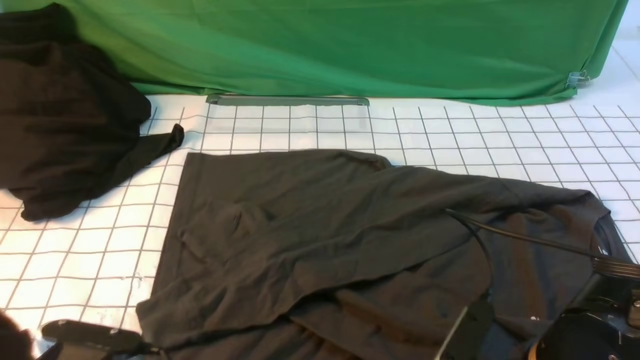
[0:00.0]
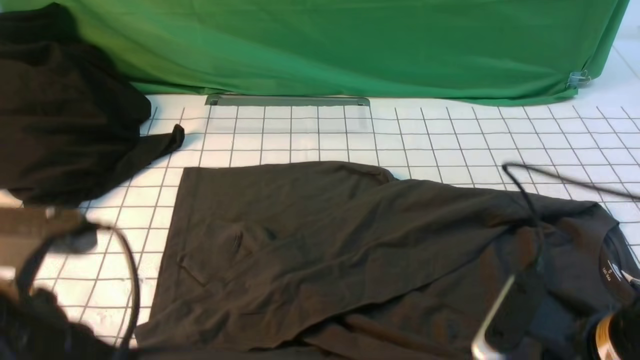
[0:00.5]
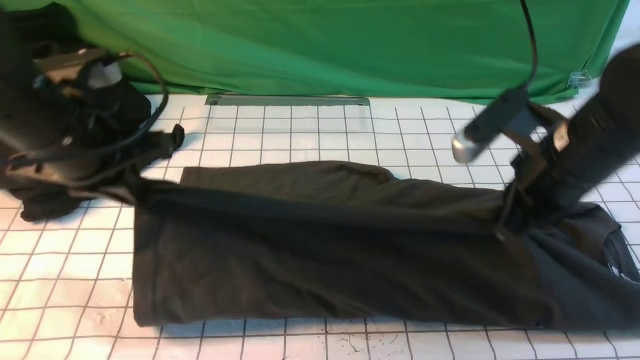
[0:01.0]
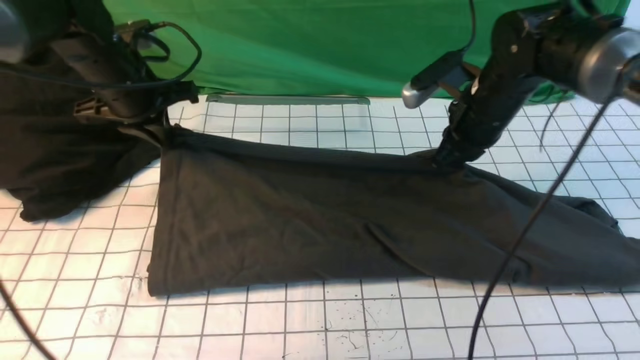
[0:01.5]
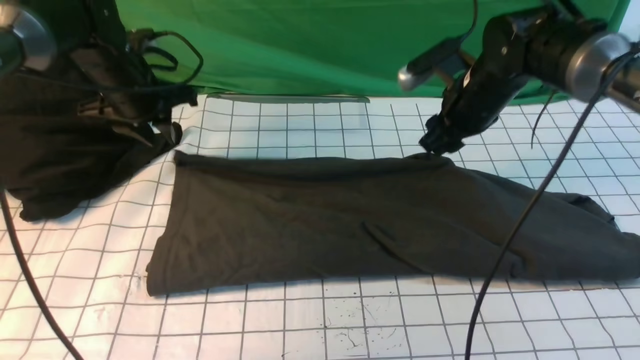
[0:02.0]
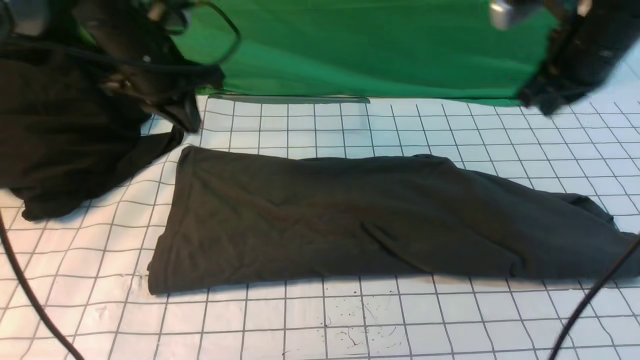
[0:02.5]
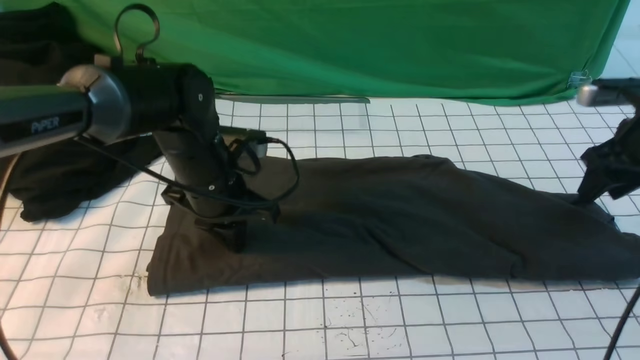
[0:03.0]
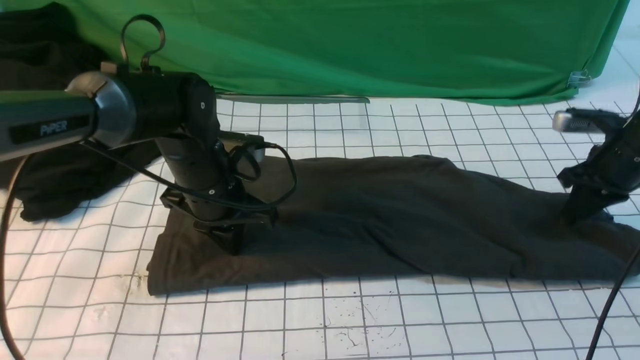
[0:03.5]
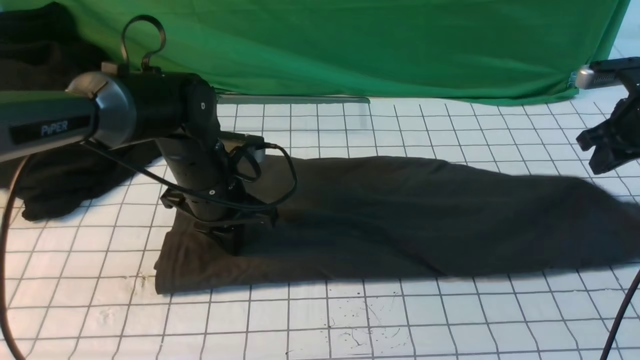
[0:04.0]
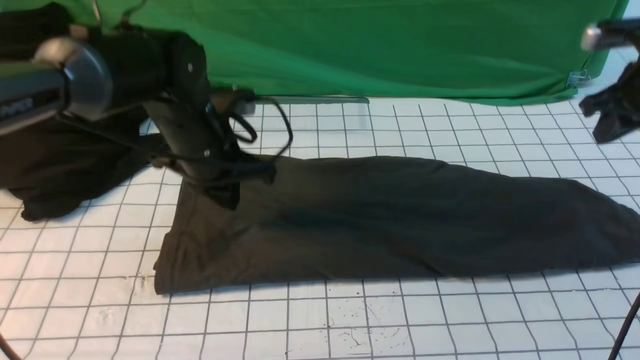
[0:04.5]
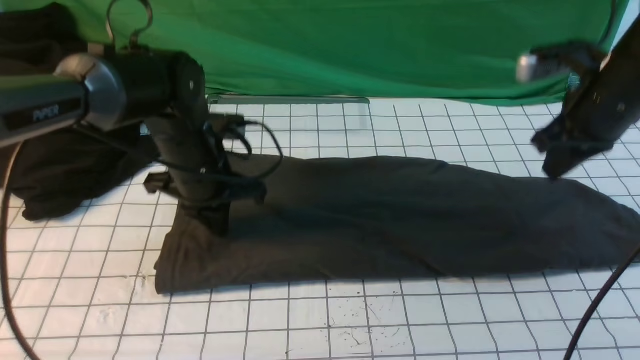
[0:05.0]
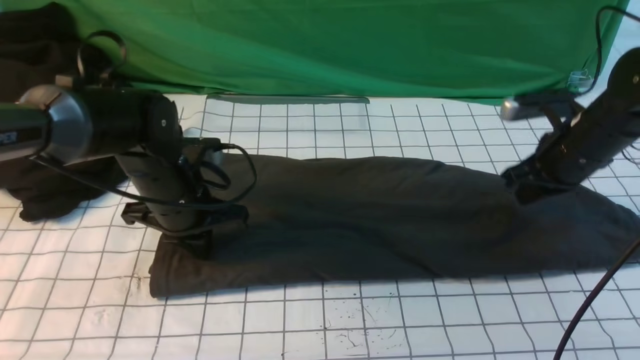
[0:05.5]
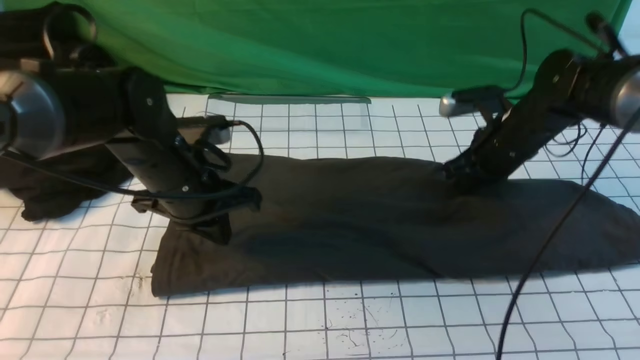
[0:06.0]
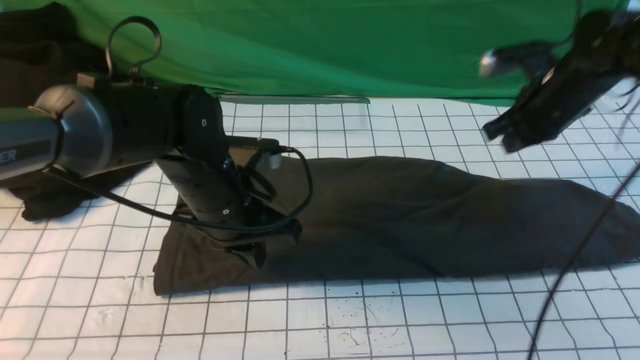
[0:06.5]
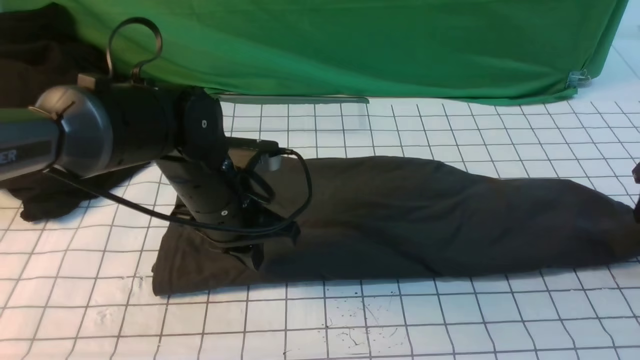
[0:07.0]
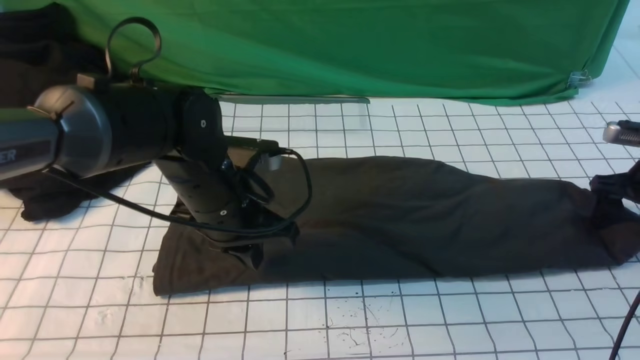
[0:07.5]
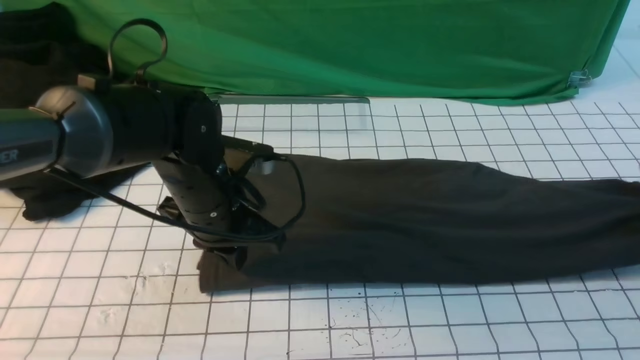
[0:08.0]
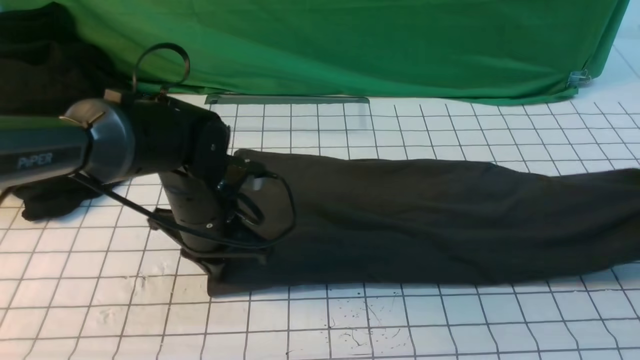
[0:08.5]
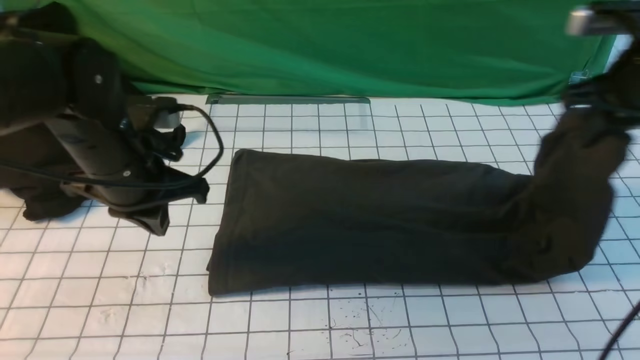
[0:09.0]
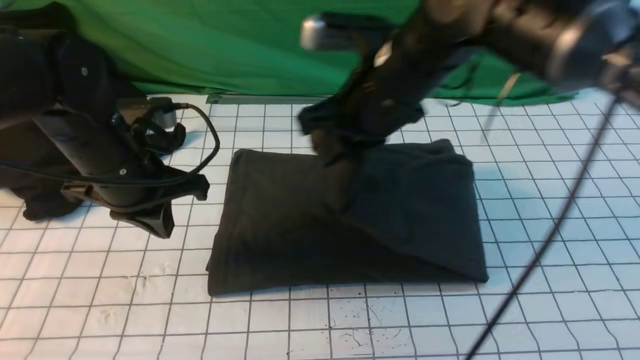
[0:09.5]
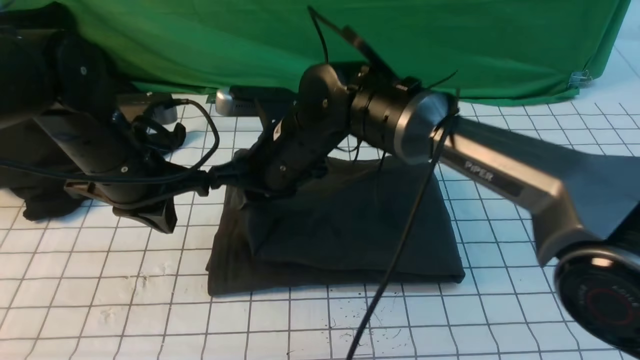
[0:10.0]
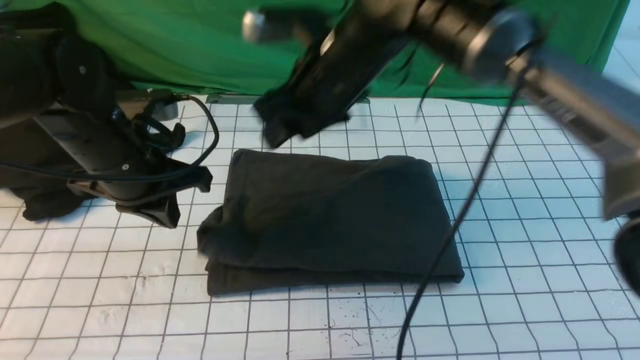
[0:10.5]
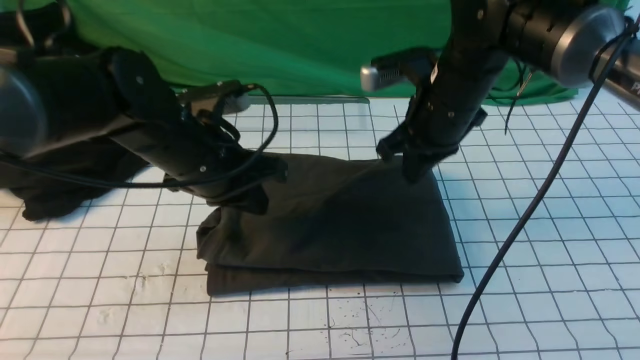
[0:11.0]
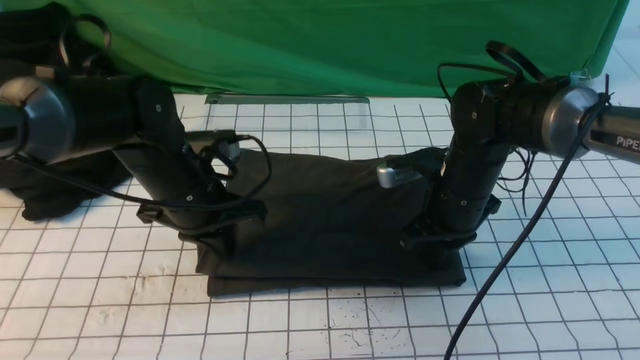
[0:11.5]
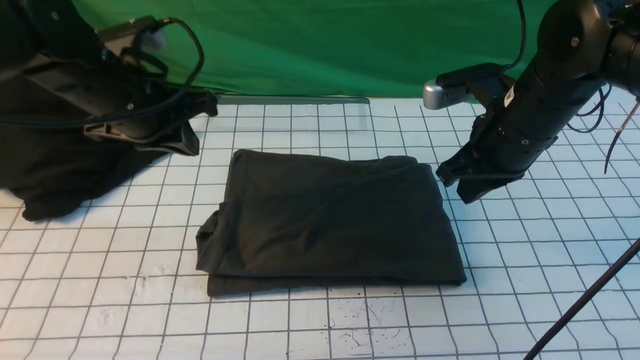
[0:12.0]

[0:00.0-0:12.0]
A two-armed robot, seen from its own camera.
Step, 0:00.5 to 0:02.5: use both arms to drag the lower edge of the fabric forward and fold it over the upper edge.
Step, 0:03.0 to 0:08.5: use the right arm to clamp the right edge of the fabric.
Step, 0:09.0 to 0:10.5: use the right arm to drag the right edge of the fabric to the left and folds it over the left edge.
0:00.0 to 0:02.0: Both grippers travel together forward, about 35 cm. The right gripper opens. The left gripper opens.
0:02.0 to 0:04.0: The left gripper shifts roughly 15 cm to the right, backward and downward, and closes its fingers; the right gripper shifts some 20 cm to the right, and closes up.
0:04.0 to 0:06.0: The right gripper is displaced to the left by about 15 cm, and closes.
0:06.0 to 0:08.0: The right gripper is displaced to the right by some 20 cm, and opens and closes again.
0:08.0 to 0:10.0: The left gripper heads to the left and upward, covering approximately 10 cm, while the right gripper travels to the left by some 50 cm, and opens its fingers.
0:10.0 to 0:12.0: The right gripper moves to the right, approximately 20 cm, and closes its fingers.

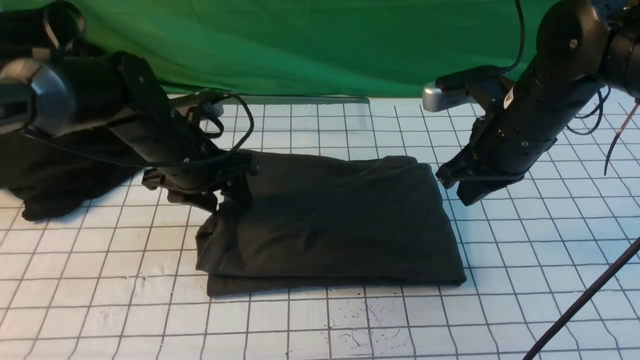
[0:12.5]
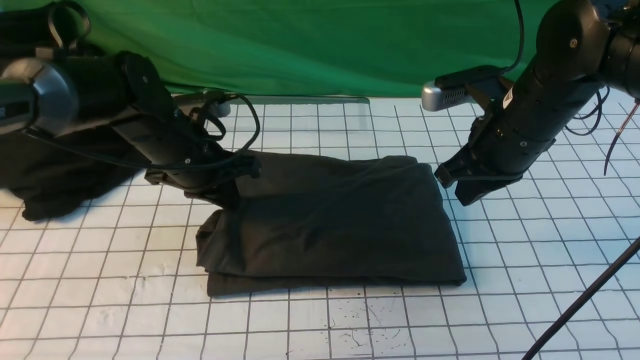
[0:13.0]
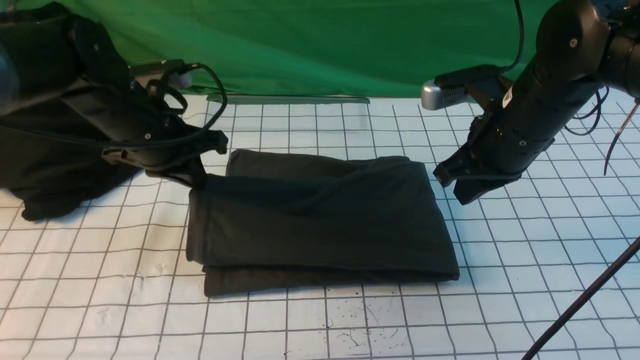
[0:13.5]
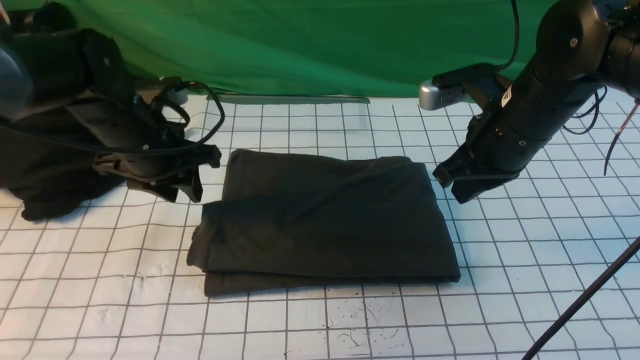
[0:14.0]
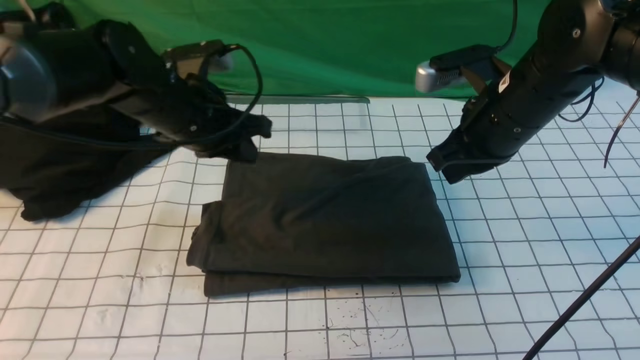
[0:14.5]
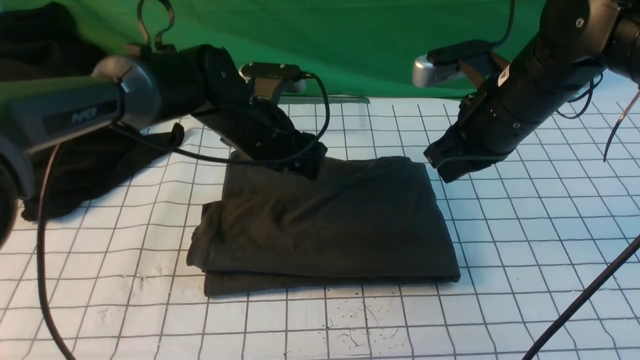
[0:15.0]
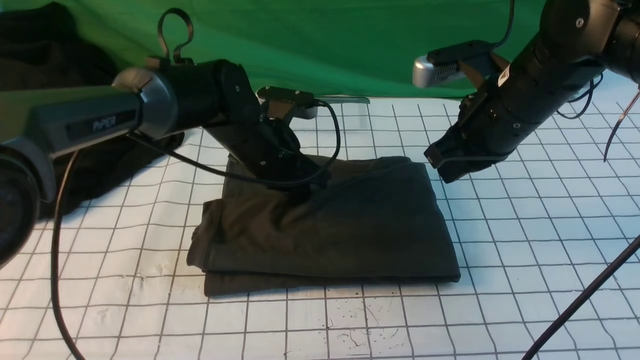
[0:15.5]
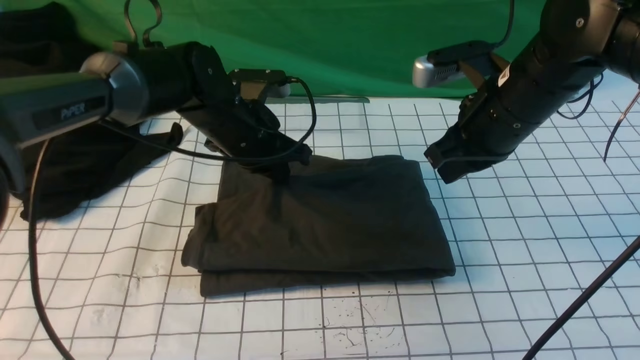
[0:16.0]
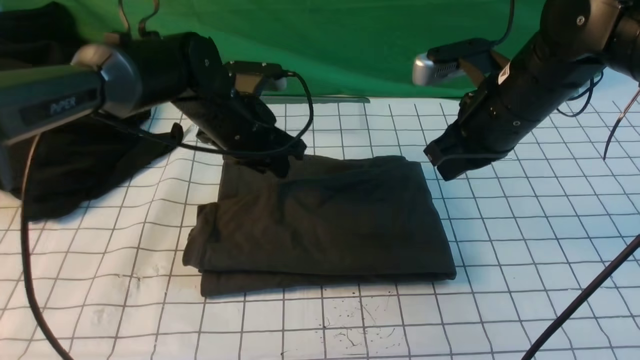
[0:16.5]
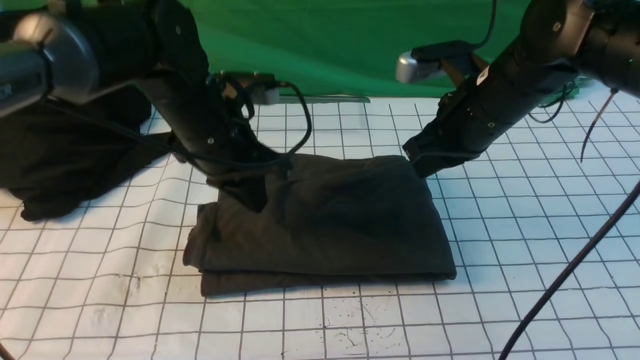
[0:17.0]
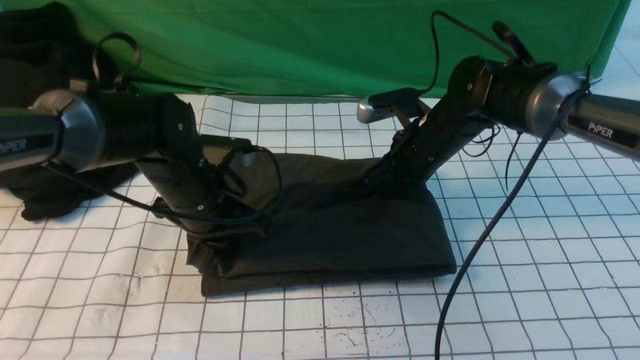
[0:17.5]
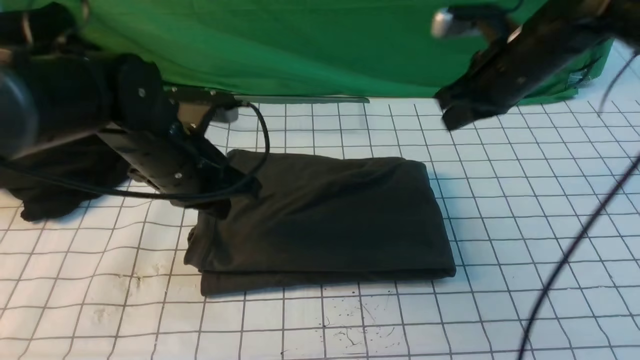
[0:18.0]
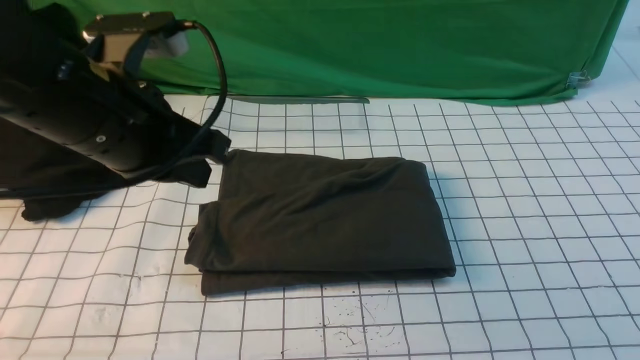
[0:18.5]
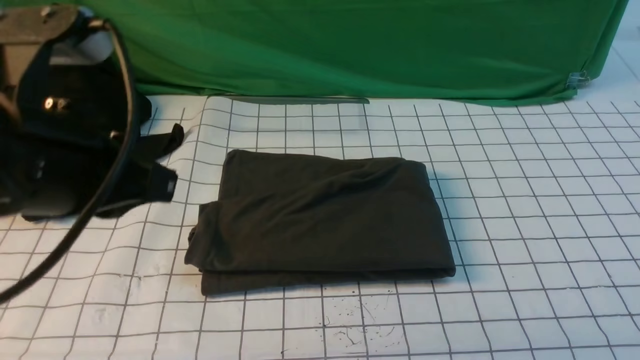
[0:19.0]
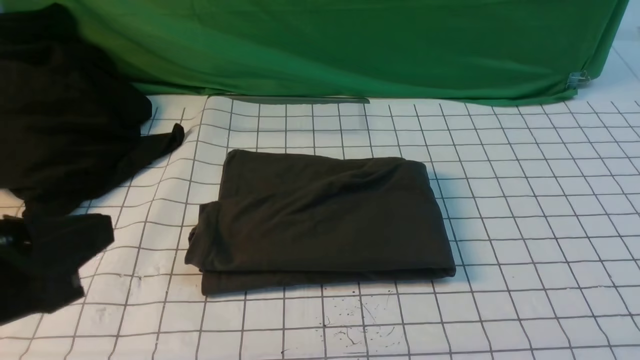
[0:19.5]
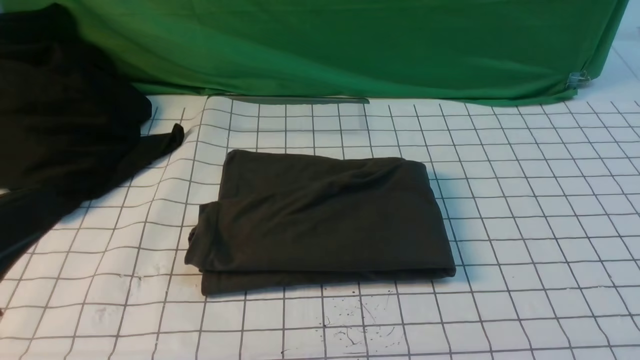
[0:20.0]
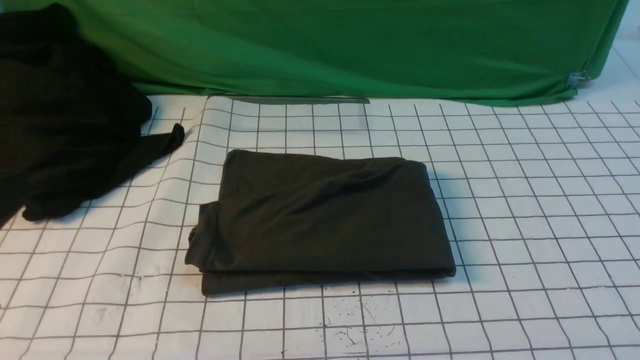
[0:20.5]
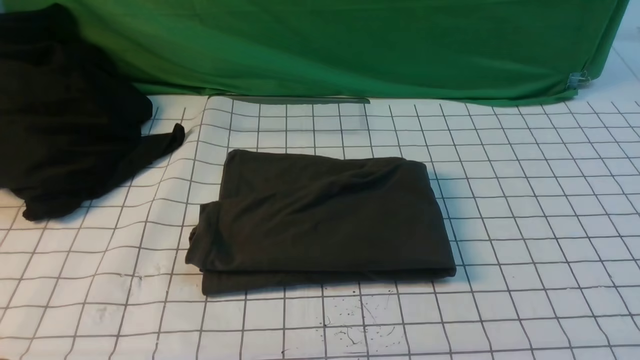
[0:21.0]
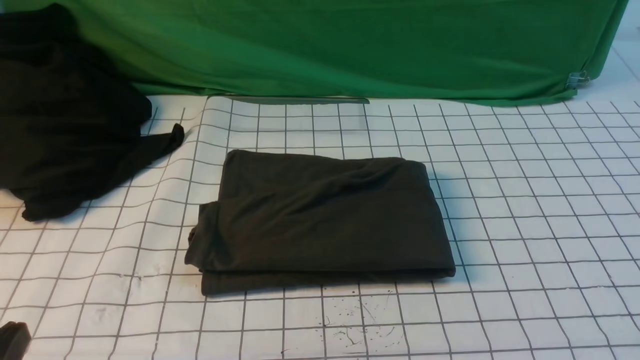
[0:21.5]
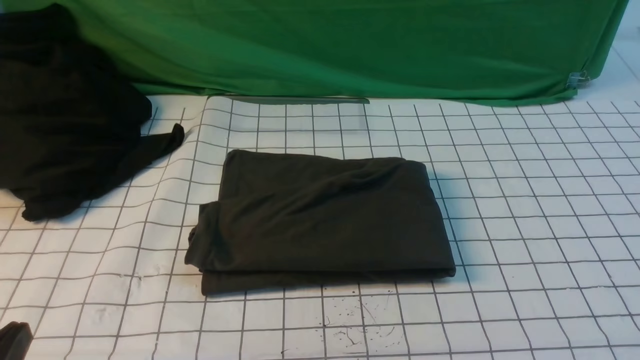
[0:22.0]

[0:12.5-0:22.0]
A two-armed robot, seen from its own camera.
0:12.5 to 0:14.5: The left gripper closes.
0:14.5 to 0:16.5: The left gripper opens, then closes again.
0:16.5 to 0:18.0: The right gripper moves some 10 cm downward and comes back. Meanwhile the left gripper goes roughly 10 cm backward, and closes.
0:18.0 to 0:20.0: The right gripper travels backward by some 40 cm; the left gripper is displaced backward by about 25 cm.
0:20.0 to 0:22.0: The left gripper travels downward by approximately 15 cm.
